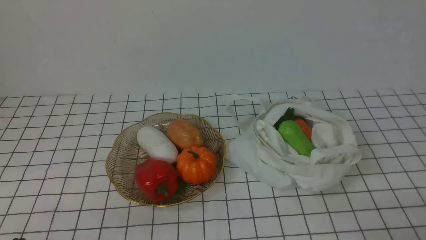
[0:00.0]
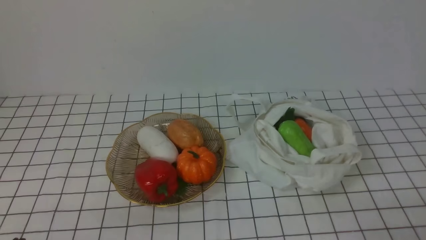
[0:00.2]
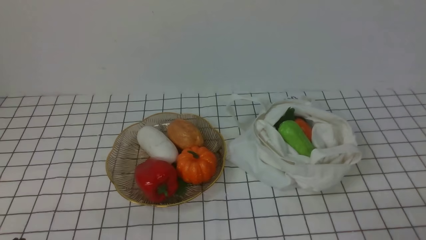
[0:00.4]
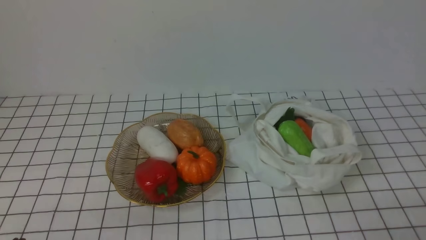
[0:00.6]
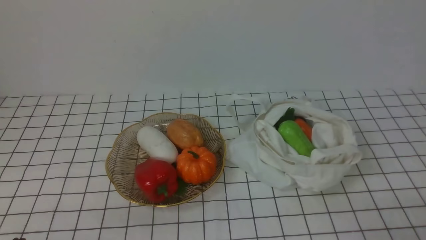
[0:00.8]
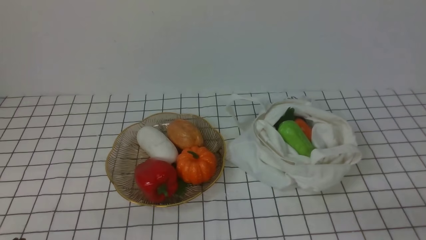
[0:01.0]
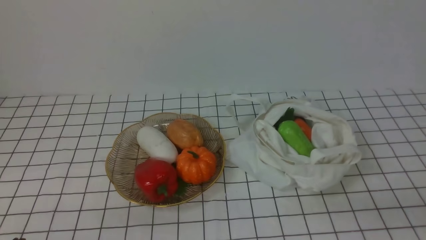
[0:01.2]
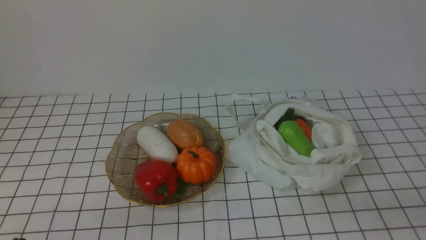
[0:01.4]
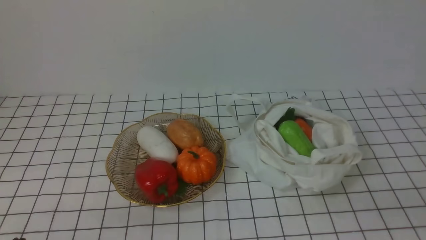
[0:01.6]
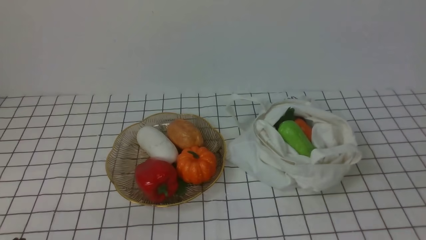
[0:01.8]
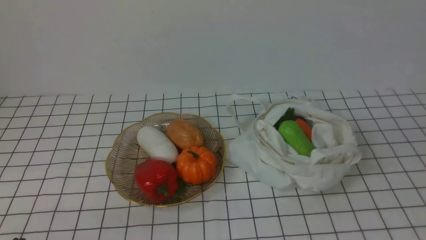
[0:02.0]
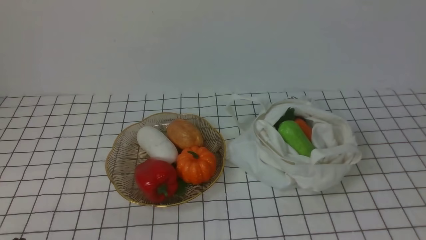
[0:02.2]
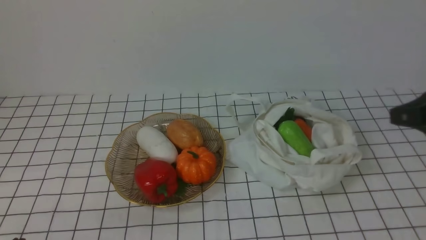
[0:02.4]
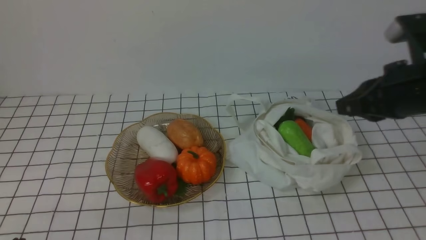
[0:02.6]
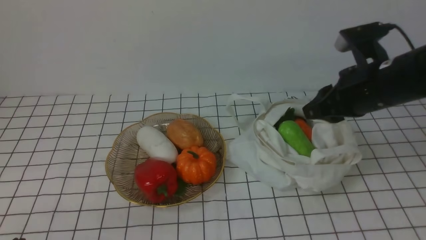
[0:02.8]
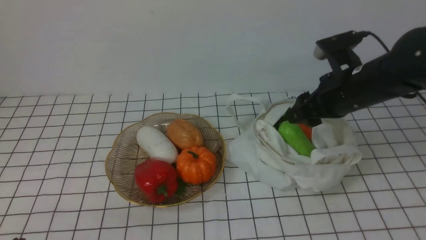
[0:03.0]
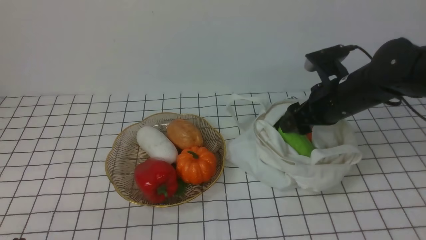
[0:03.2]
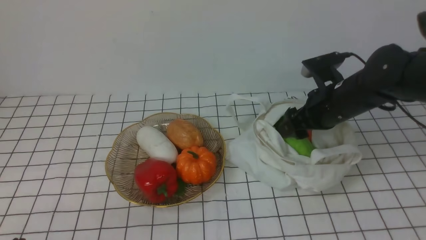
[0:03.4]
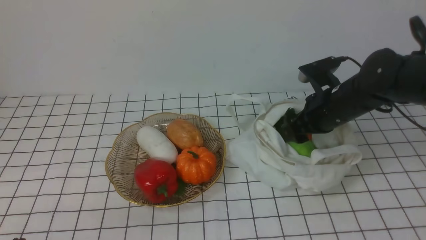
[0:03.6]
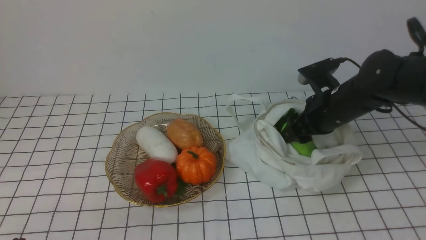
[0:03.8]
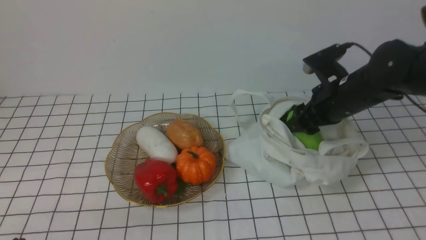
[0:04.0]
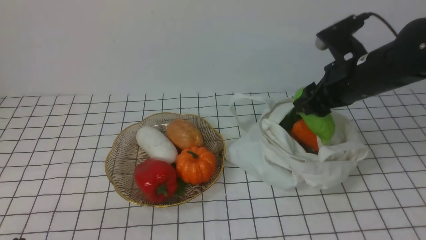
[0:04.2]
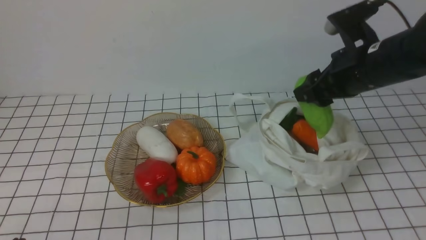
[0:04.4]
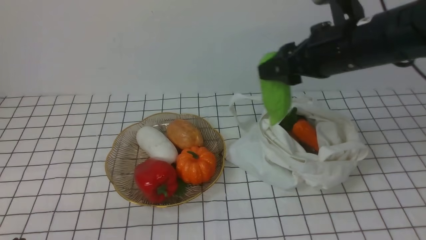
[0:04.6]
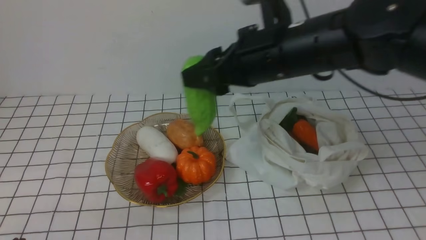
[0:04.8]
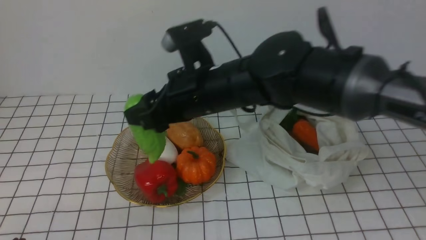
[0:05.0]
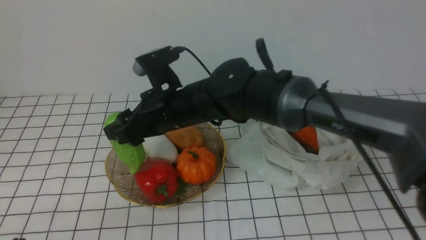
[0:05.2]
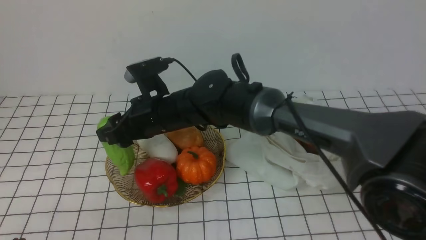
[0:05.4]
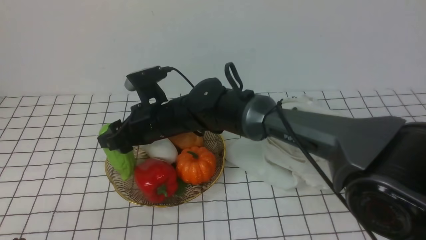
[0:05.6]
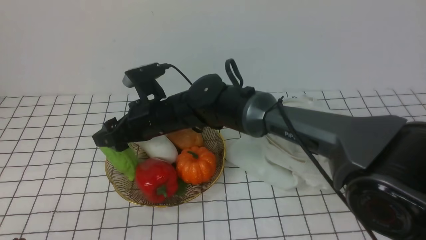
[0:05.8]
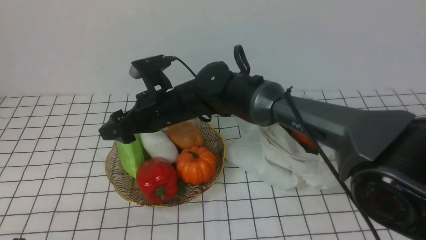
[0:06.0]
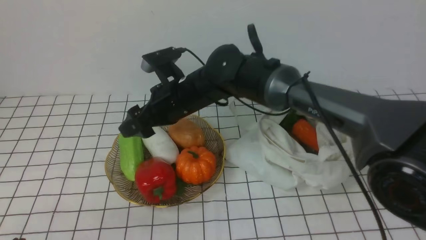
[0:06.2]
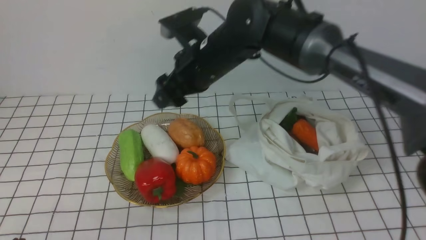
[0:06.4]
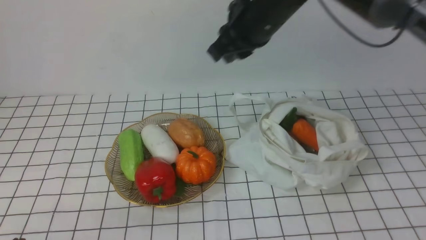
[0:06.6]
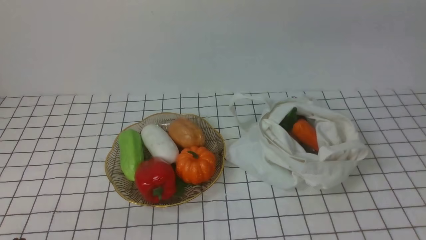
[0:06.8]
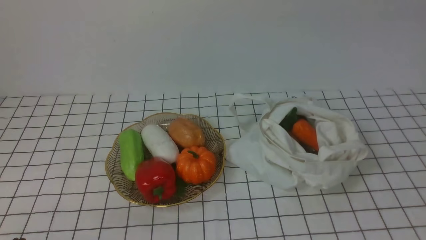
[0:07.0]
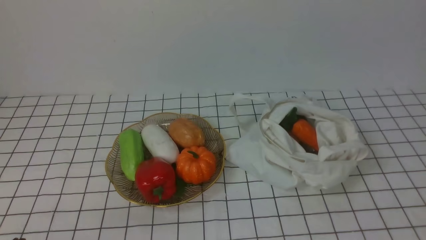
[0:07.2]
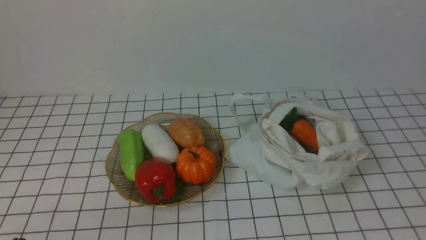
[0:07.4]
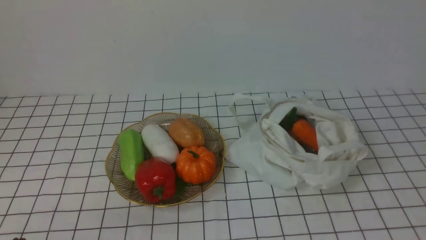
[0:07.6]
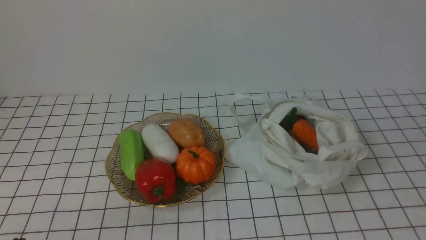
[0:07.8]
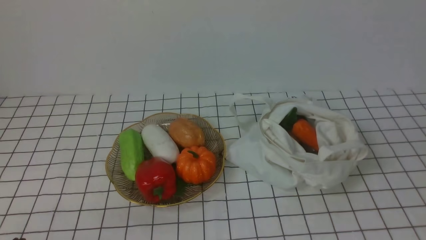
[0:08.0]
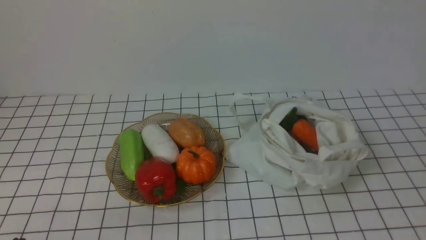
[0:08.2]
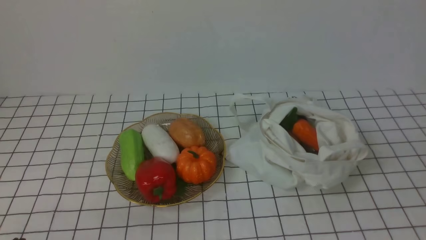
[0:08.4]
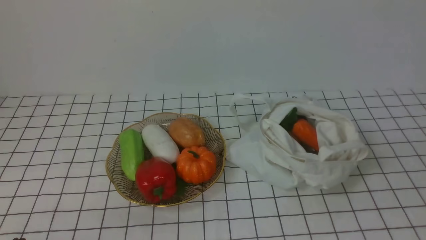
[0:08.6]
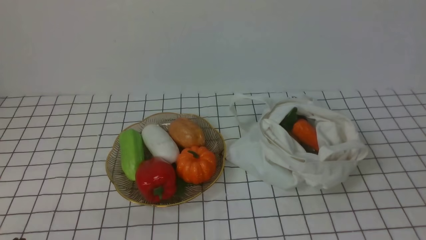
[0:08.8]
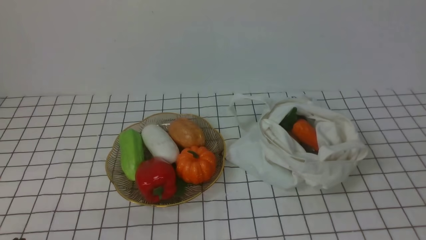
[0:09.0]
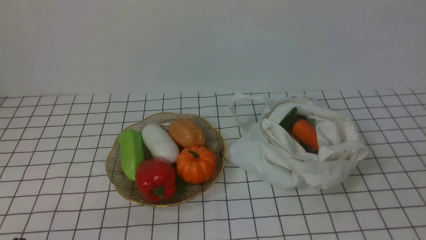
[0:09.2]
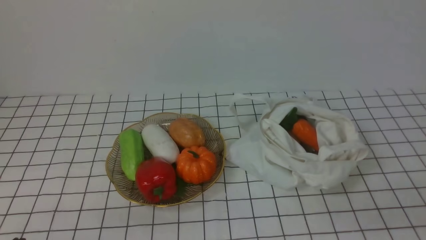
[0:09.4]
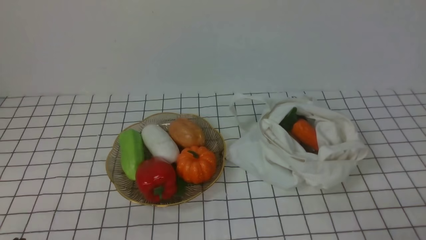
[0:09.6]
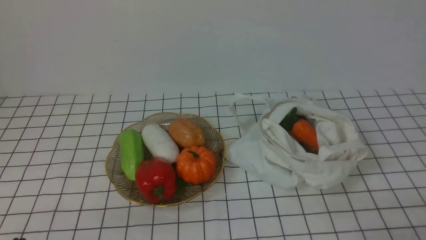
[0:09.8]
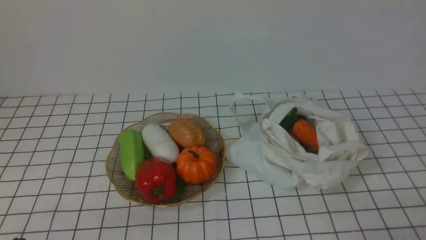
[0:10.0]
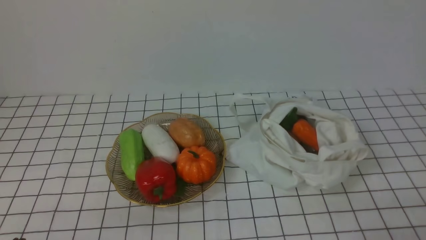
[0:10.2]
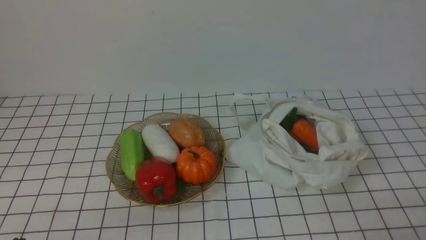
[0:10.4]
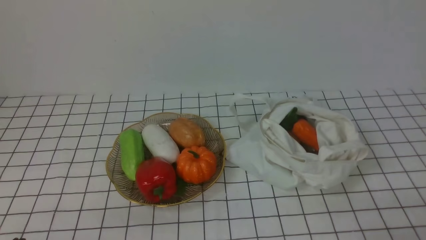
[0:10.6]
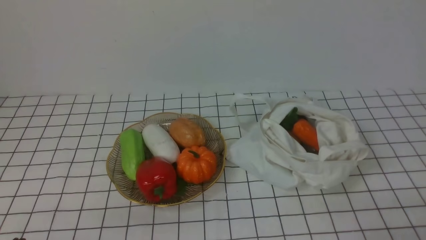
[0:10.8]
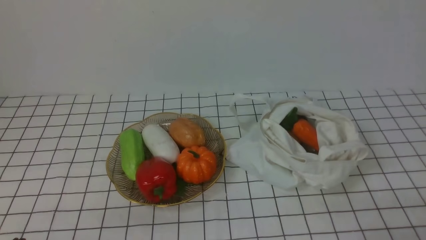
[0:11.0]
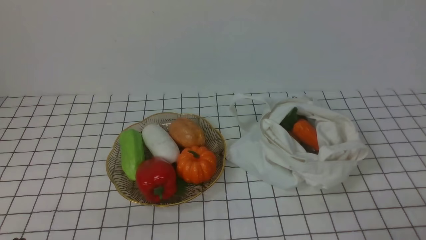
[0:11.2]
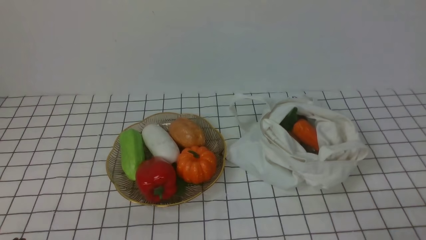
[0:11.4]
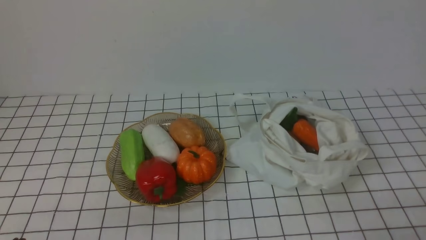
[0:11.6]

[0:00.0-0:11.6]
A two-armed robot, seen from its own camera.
Task of the whole recording: take vegetables from bag on white checkered tablecloth place on plate.
Step, 0:00.0 to 0:03.8: Grasp the bitter melon with right gripper.
Step, 0:04.0 to 0:06.0: Place the bitter melon on the plate with right gripper.
0:01.4 to 0:02.8: The right gripper shifts about 25 cm forward and upward.
0:02.8 to 0:04.4: The right gripper moves some 10 cm downward and comes back, and opens its fingers.
0:04.4 to 0:05.8: The right gripper moves to the left, some 30 cm.
0:05.8 to 0:07.2: The right gripper travels upward, to the right and backward by some 50 cm, and closes.
0:10.2 to 0:11.6: Neither gripper changes place.

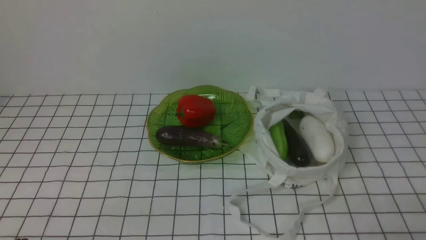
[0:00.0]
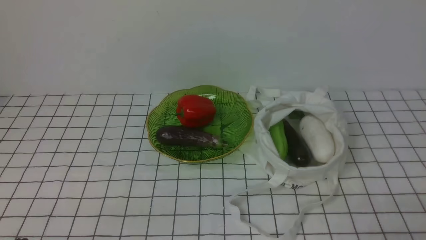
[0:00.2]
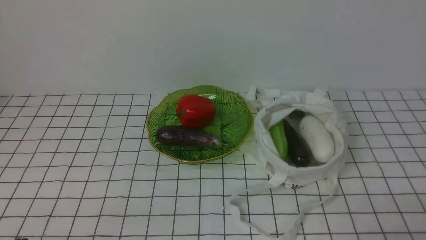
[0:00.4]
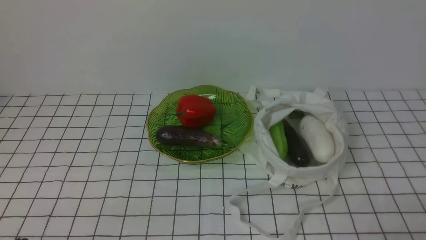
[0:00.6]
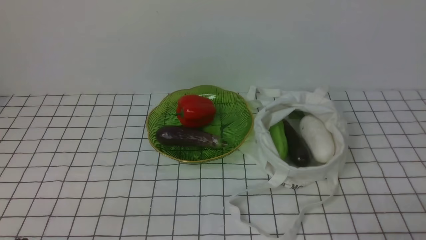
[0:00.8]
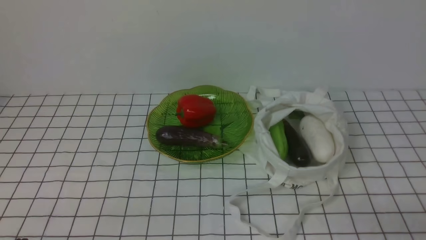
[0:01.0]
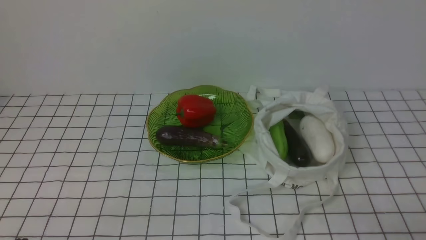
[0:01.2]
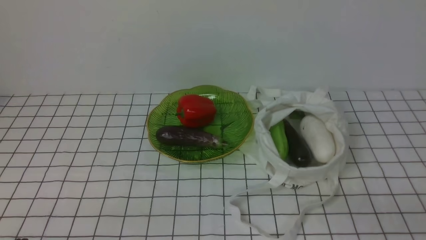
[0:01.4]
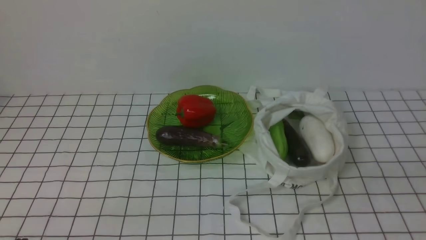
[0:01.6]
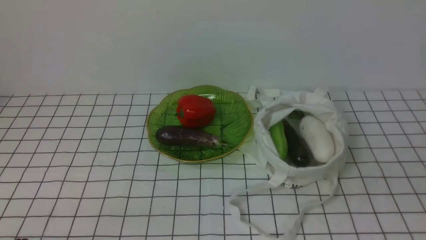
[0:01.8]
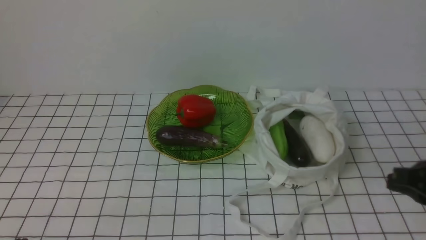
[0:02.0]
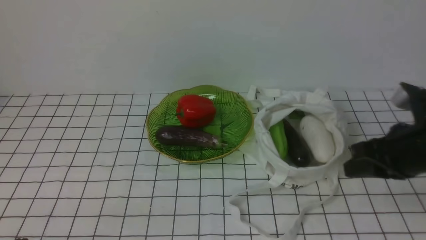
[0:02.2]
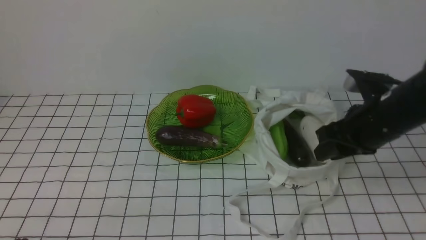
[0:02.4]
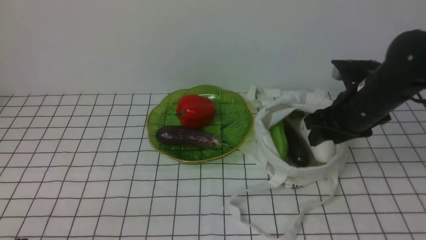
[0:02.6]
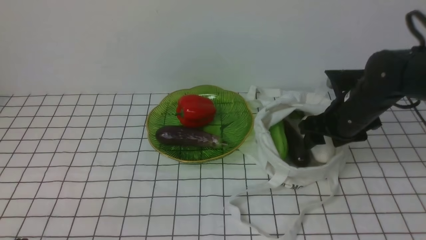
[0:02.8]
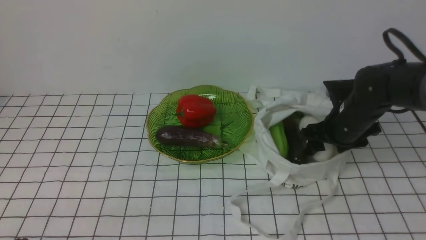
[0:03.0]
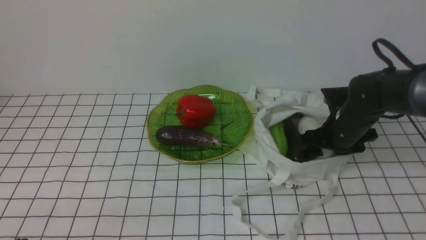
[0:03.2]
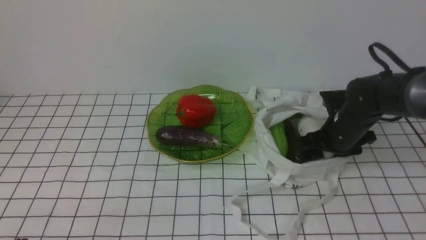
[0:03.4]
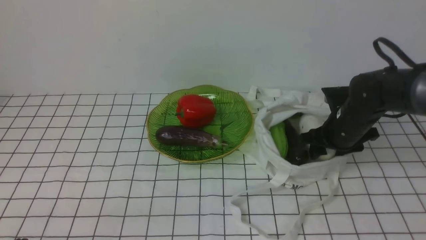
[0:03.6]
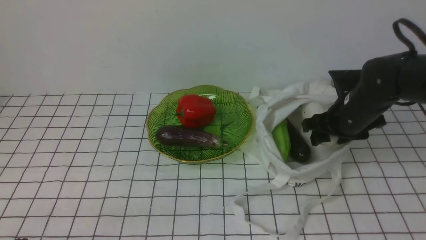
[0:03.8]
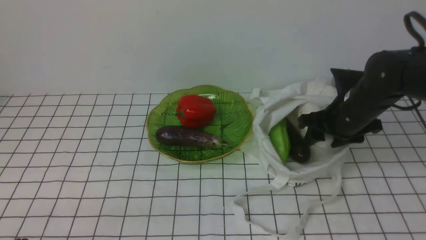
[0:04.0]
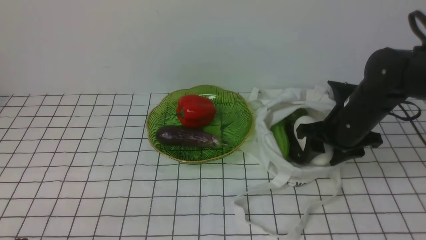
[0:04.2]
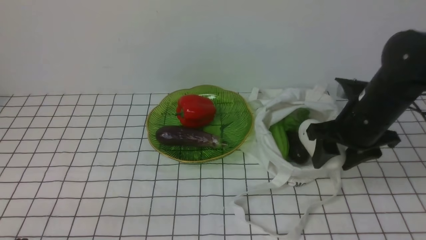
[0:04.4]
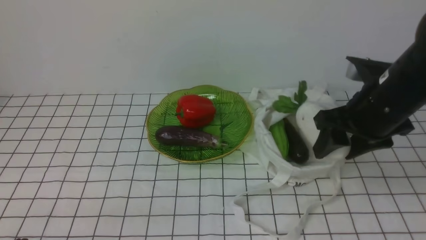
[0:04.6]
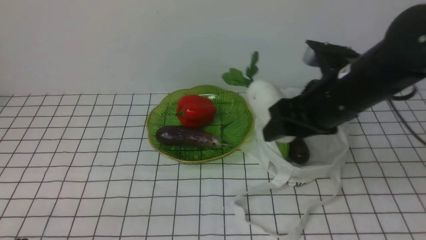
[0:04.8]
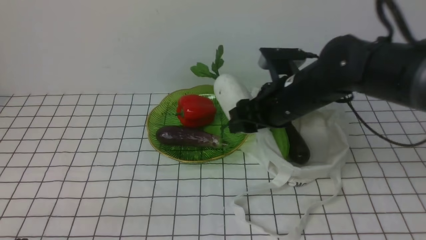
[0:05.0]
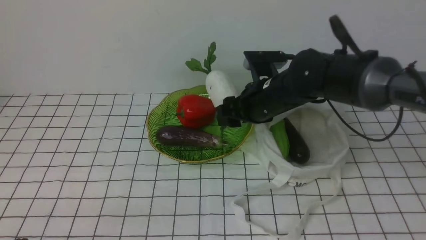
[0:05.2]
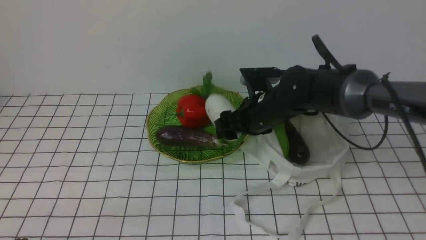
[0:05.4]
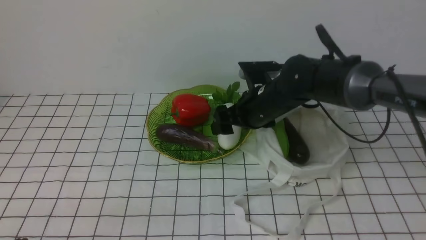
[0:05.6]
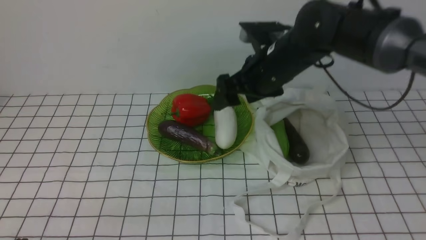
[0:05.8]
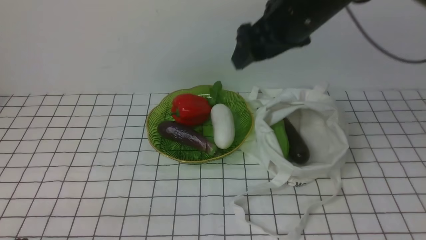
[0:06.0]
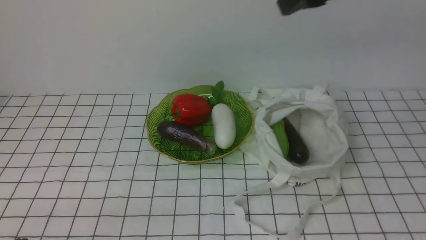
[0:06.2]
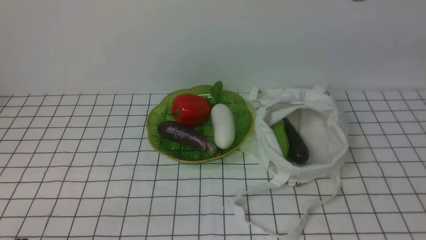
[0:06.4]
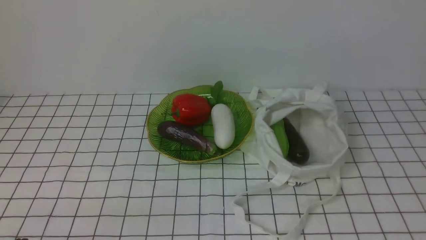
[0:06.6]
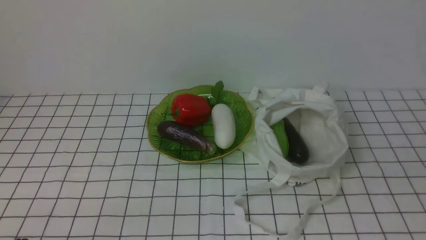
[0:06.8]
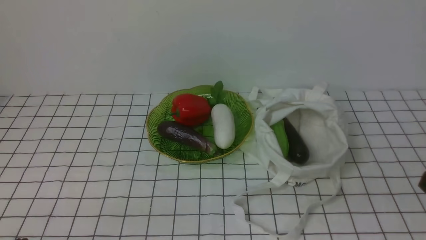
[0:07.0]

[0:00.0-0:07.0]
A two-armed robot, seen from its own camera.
Task of the whole recording: take vegetables from bag on white checkered tablecloth place on plate.
Step, 0:00.0 to 0:03.4: Grasp the radish with right gripper.
Step, 0:03.6 to 0:05.6: Place the radish on the plate with right gripper.
0:01.4 to 0:02.8: The right gripper heads forward, covering roughly 30 cm, and opens up.
0:02.8 to 0:04.2: The grippers make only small movements.
0:04.2 to 0:05.6: The right gripper shifts about 15 cm to the left.
0:05.6 to 0:07.0: The right gripper moves backward and to the right, about 35 cm, and closes up.
